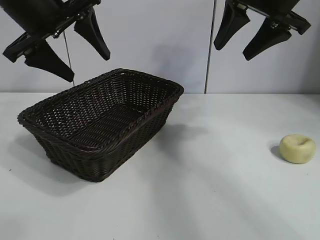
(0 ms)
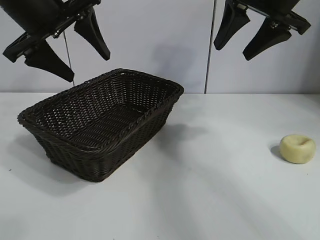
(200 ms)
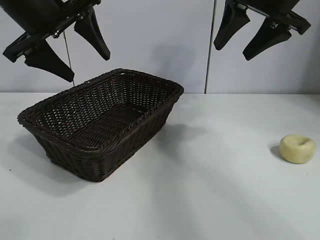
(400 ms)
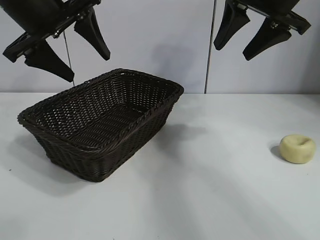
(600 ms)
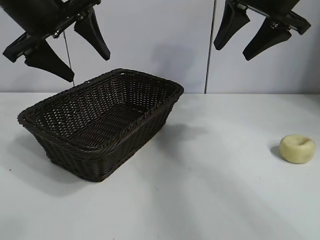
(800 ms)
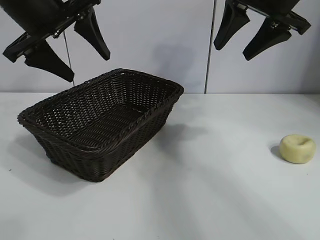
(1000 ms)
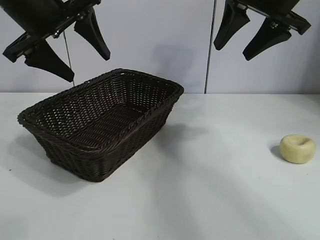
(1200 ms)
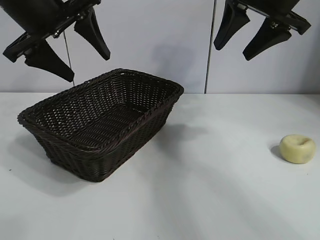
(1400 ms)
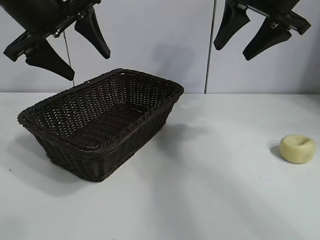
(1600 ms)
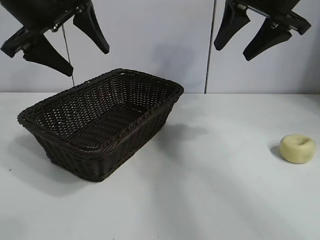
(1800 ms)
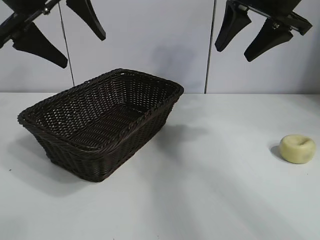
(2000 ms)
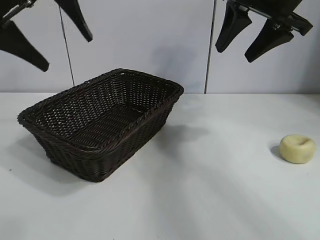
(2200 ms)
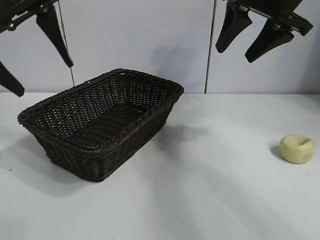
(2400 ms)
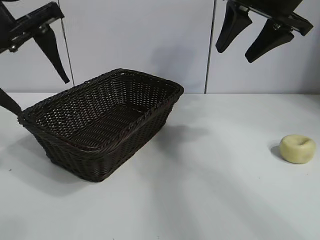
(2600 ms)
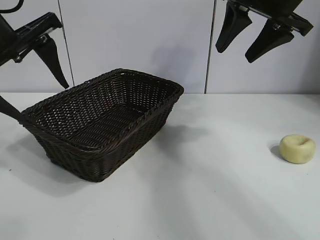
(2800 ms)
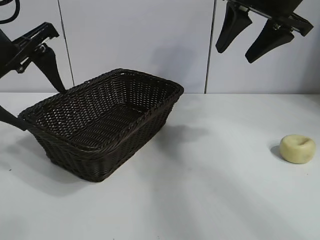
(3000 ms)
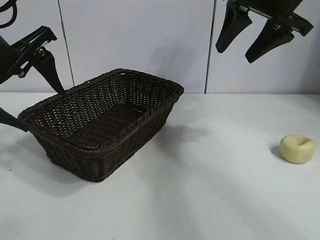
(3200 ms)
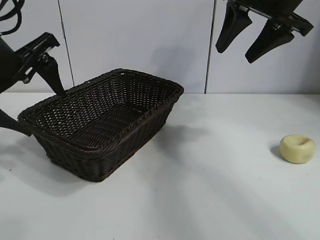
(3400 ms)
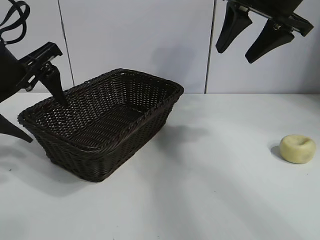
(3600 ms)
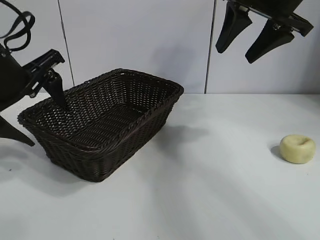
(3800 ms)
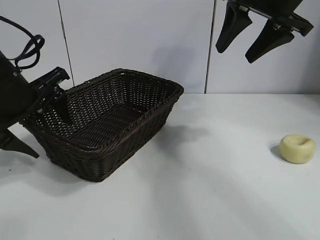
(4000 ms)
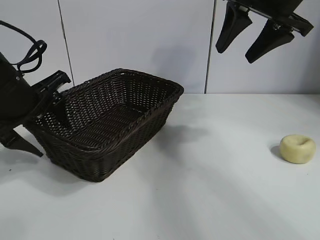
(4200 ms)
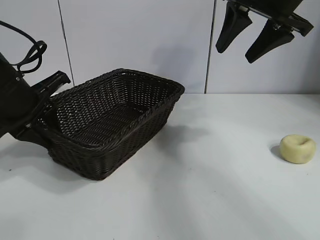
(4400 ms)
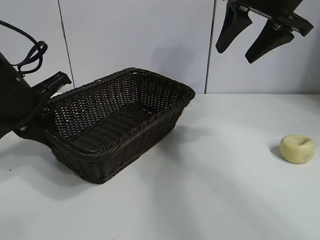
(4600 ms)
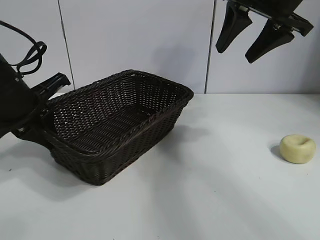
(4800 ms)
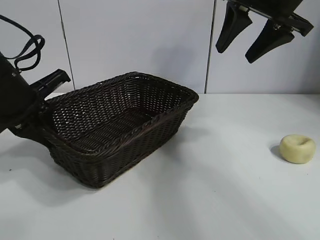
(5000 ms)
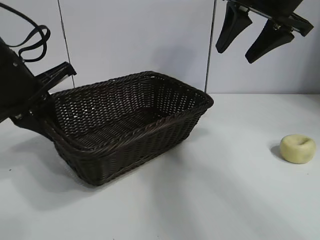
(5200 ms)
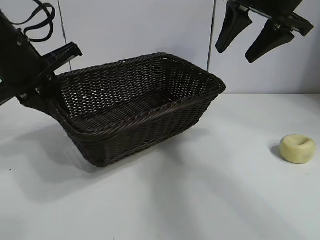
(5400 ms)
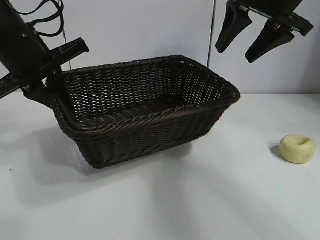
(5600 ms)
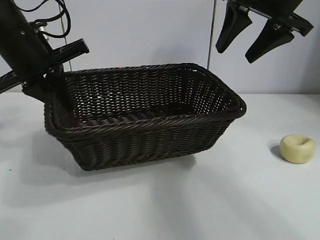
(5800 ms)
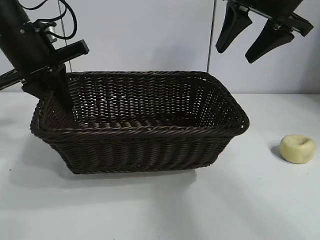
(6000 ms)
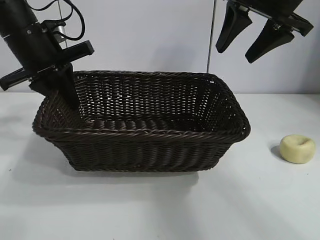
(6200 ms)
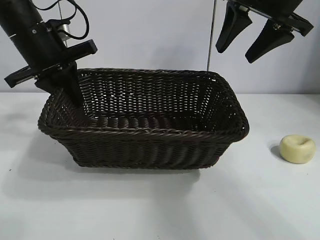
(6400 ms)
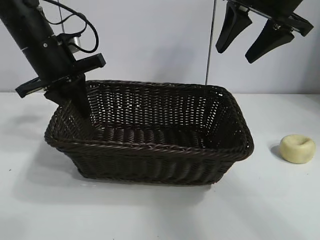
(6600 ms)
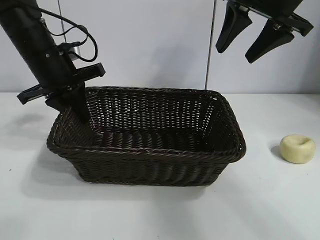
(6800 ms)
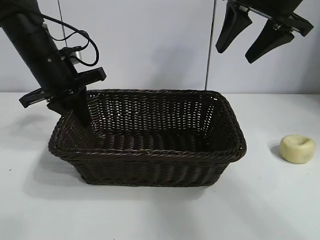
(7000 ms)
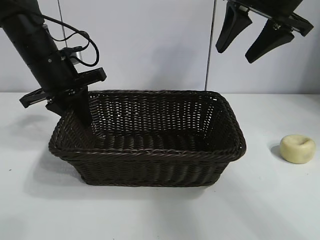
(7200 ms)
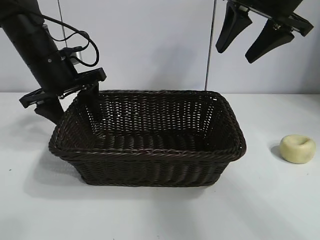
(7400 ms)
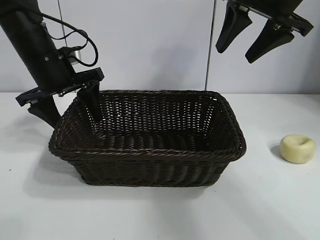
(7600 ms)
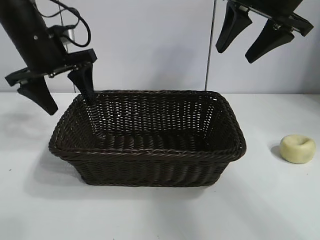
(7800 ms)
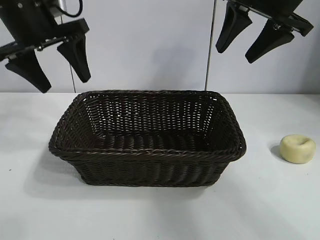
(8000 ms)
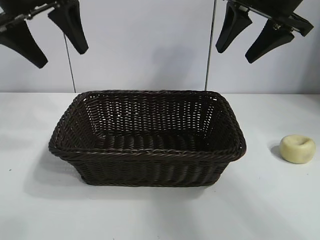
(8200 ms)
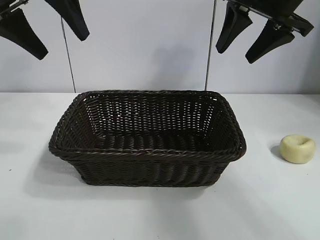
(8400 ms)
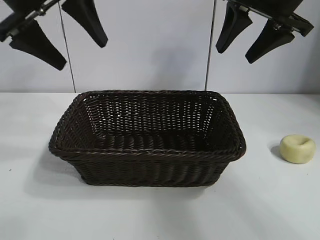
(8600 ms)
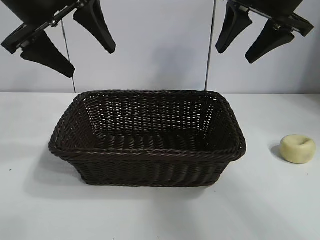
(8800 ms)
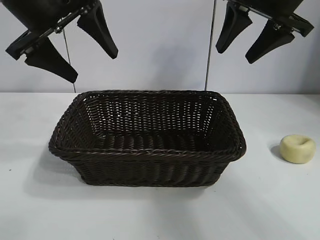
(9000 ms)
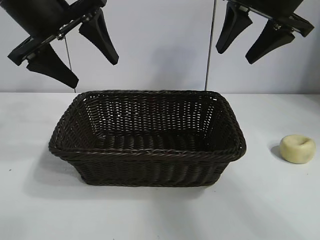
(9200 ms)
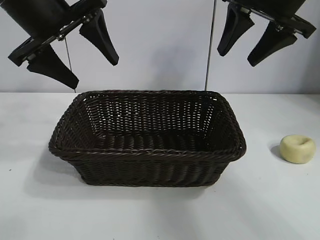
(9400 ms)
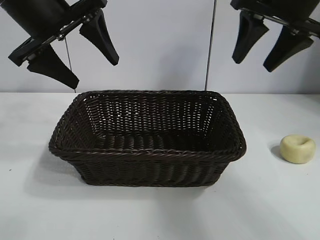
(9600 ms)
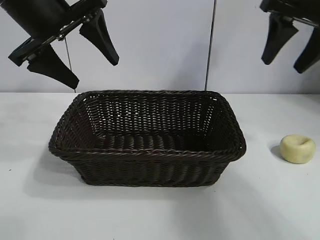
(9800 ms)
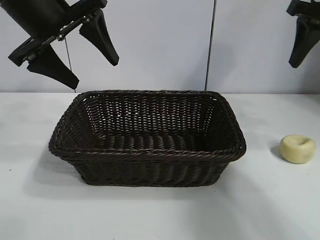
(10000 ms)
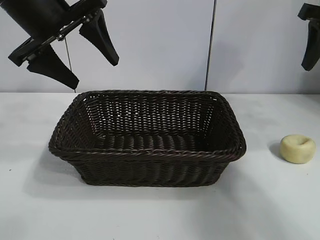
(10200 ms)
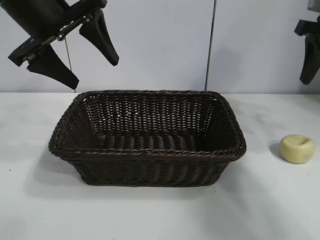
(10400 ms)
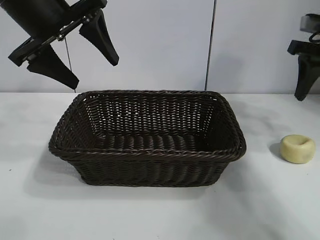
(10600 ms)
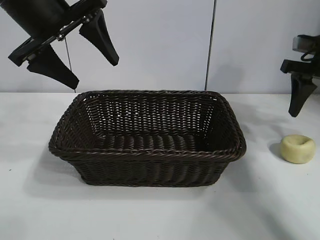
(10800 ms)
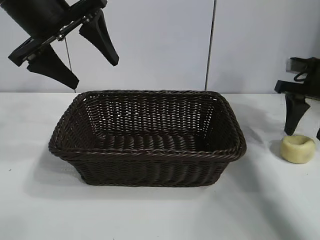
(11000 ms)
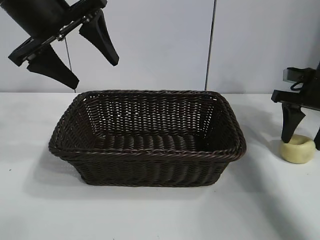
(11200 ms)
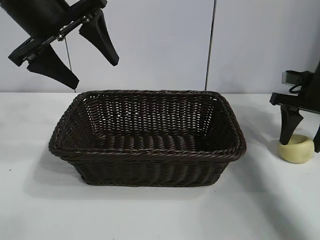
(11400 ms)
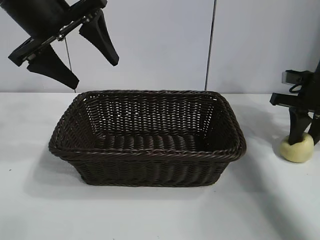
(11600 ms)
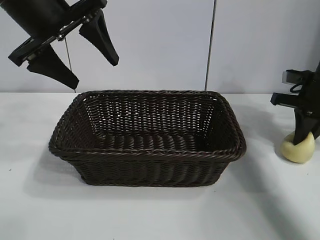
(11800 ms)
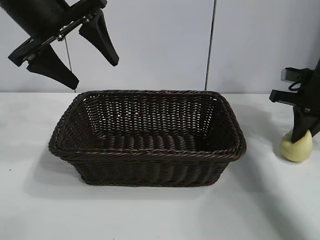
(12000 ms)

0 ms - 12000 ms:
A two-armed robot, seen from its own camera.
Task of the whole recording: pick up the egg yolk pastry and put it into the basket.
Step, 1600 ms - 4400 ms: Grasp the basket with left gripper.
Step, 4600 ms - 7400 ms: Place the basket in the center of view with left gripper.
Step, 7600 ms - 11800 ms: Grasp egg yolk pastry with right gripper.

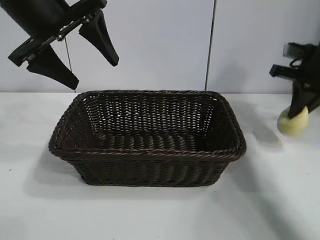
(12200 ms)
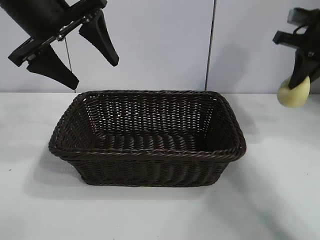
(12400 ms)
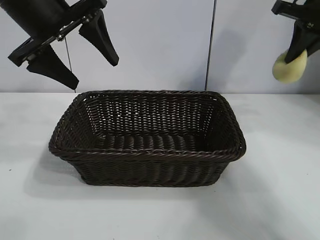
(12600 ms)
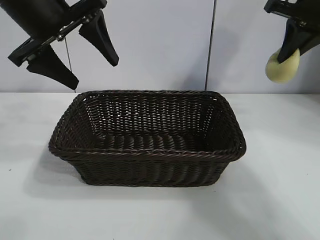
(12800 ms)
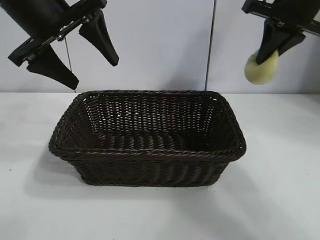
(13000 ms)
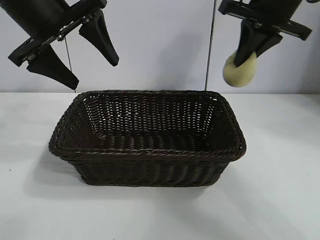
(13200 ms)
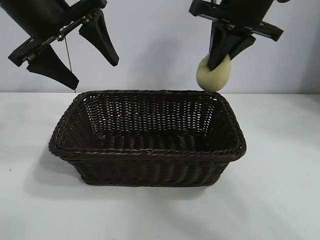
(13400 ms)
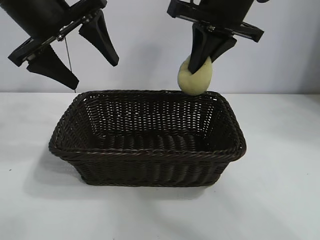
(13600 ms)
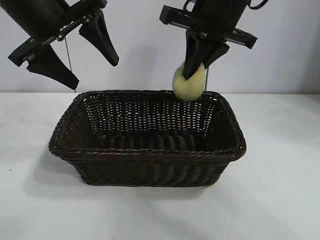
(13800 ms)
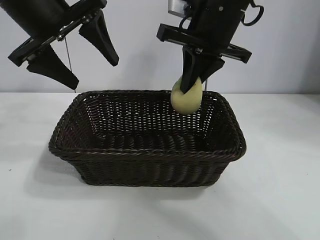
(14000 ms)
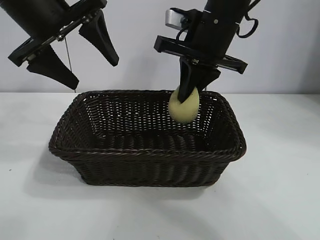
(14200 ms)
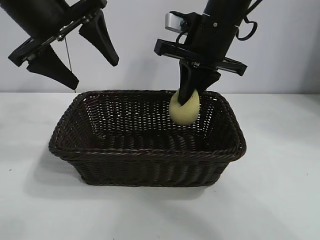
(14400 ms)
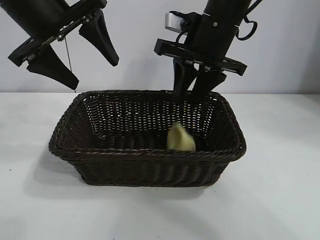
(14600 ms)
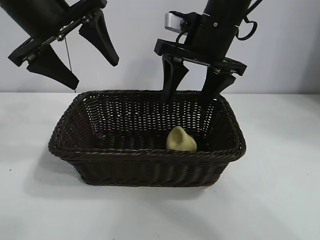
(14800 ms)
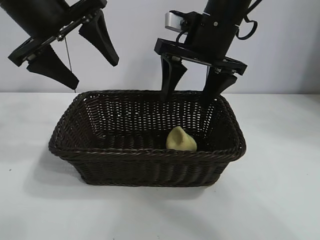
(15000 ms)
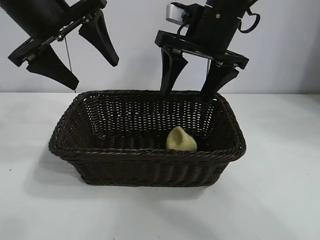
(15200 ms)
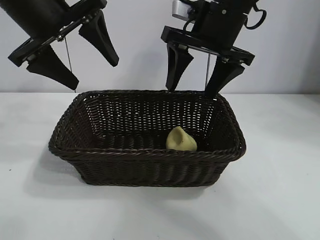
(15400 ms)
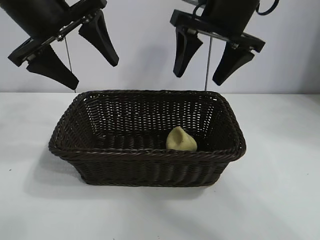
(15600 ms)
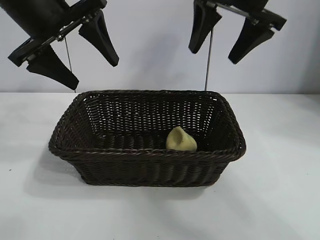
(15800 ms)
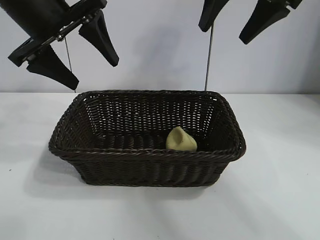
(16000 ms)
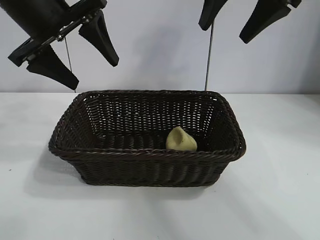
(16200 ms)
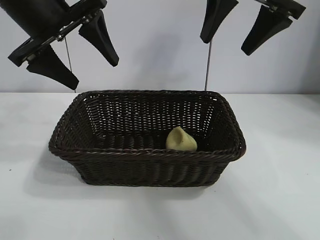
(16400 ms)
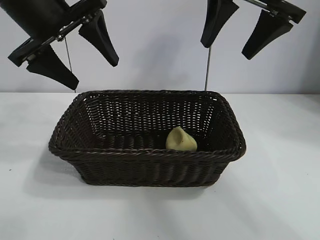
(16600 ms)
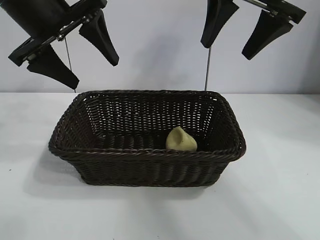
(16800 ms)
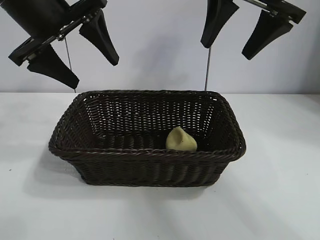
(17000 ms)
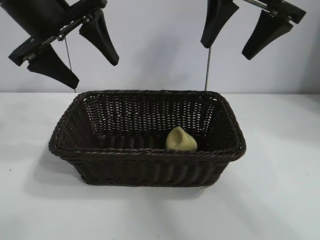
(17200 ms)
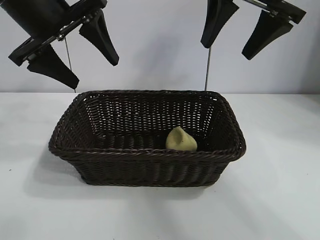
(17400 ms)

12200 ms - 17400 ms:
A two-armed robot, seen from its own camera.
Task of the whole recording: pick up the egg yolk pastry and put it into the basket.
Step, 12200 ms - 14800 ms: Place the egg yolk pastry in the basket with right gripper.

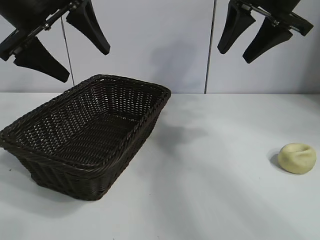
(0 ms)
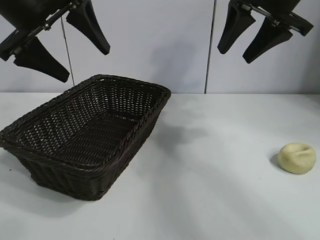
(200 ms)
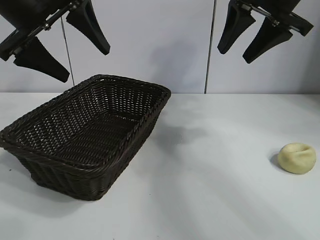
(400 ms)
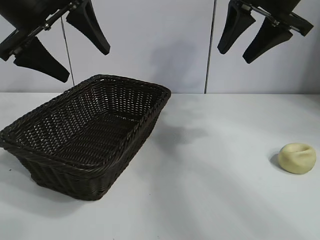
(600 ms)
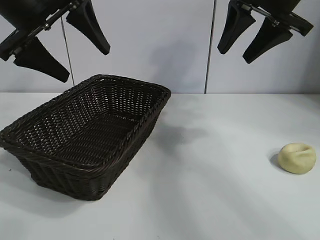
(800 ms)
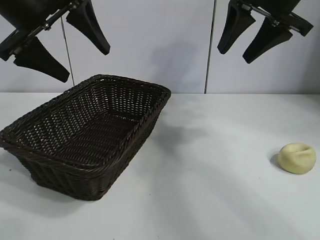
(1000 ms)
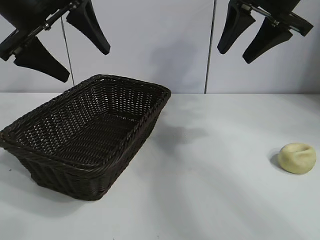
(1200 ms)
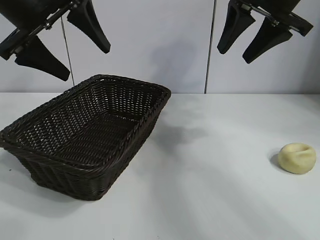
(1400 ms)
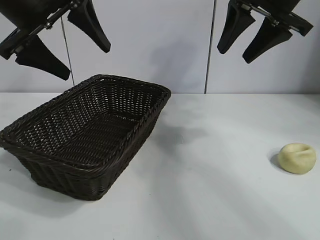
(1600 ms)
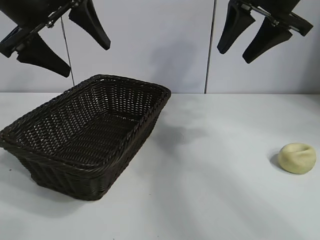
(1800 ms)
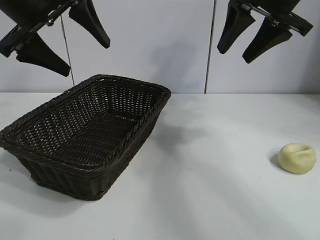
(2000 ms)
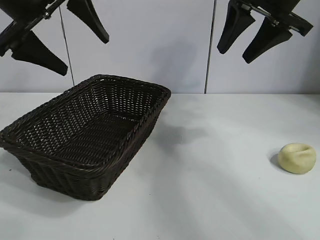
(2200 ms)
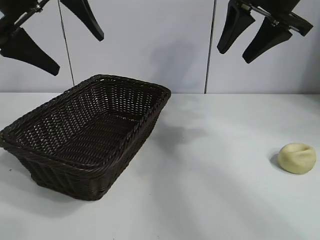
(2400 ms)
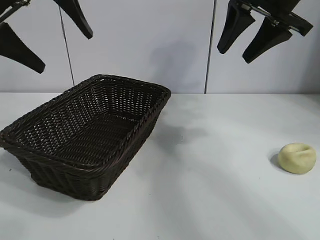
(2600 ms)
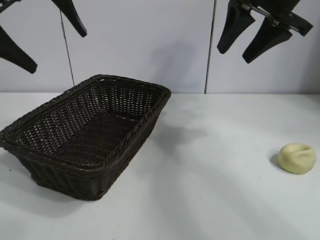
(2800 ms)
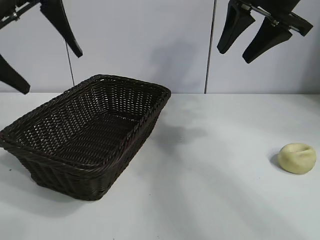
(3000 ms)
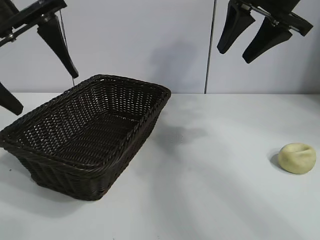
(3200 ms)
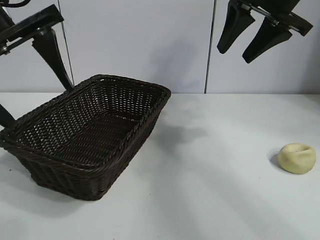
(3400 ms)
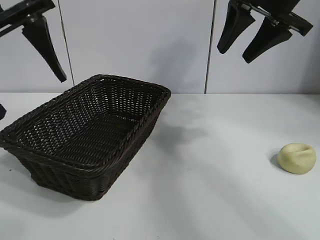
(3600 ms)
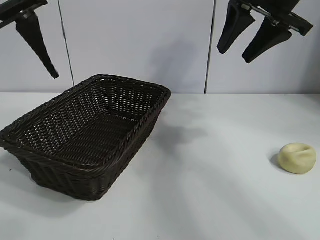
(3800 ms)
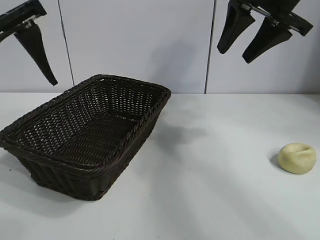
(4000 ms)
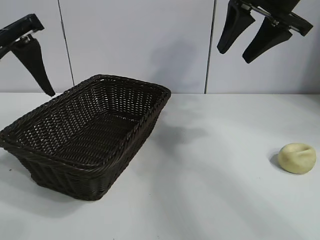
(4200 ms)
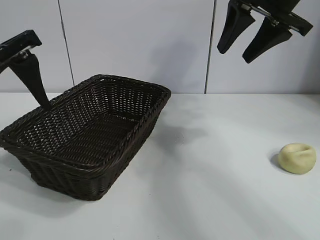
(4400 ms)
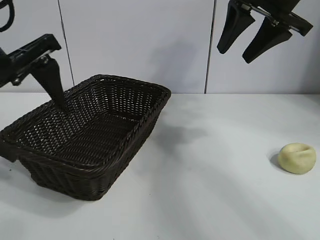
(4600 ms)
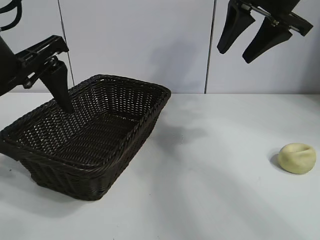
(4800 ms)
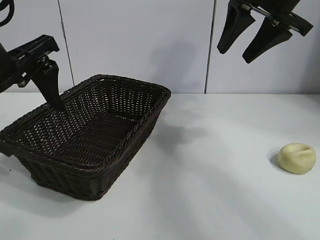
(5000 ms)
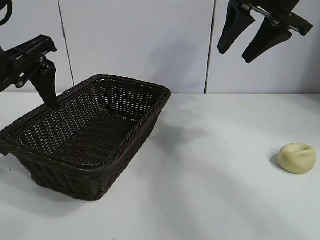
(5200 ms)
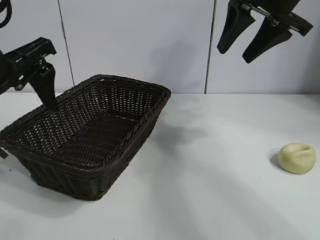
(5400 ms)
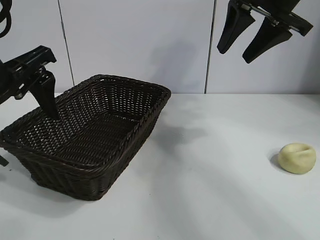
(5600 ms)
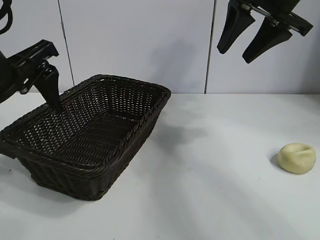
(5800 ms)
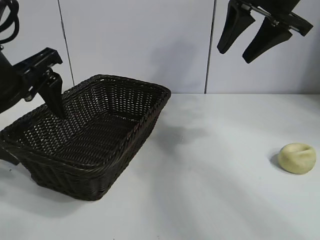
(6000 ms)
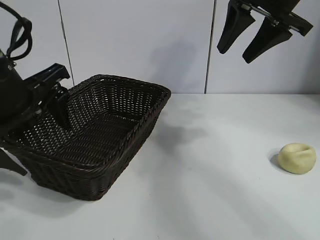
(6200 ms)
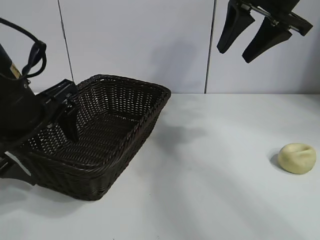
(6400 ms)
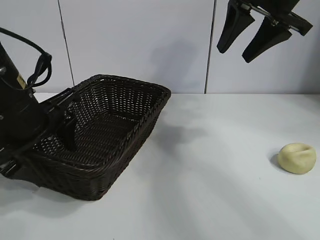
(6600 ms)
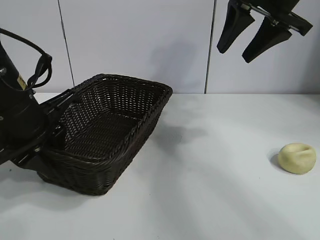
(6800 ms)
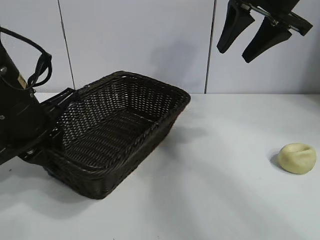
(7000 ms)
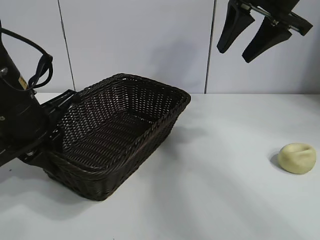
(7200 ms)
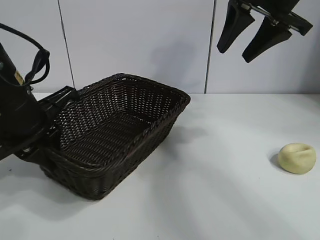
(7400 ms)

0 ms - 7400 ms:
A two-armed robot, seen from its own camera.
Task of the whole recording: pick up the egg yolk pastry and put it into the basket.
Step, 1400 ms - 7000 ms: Grasp the basket with left gripper.
